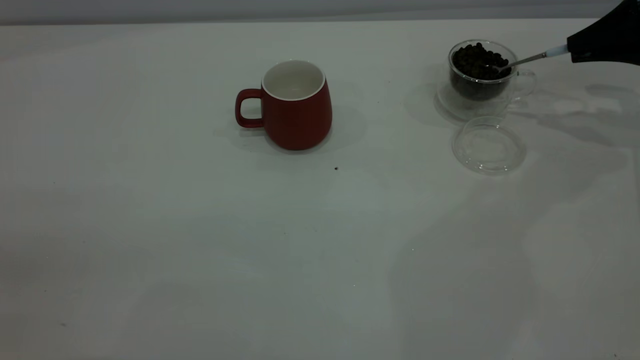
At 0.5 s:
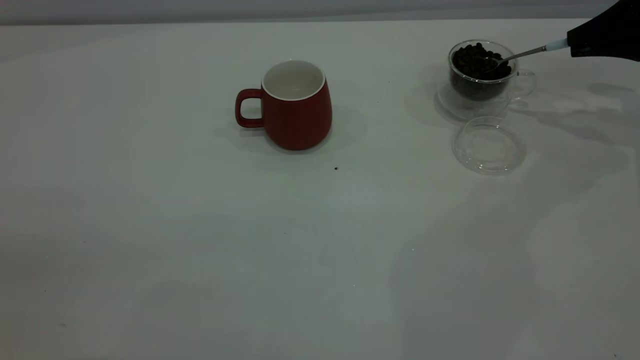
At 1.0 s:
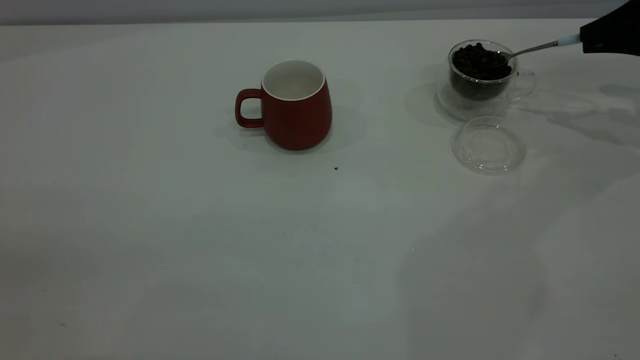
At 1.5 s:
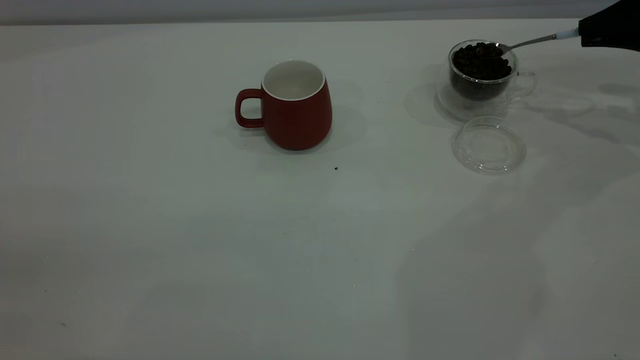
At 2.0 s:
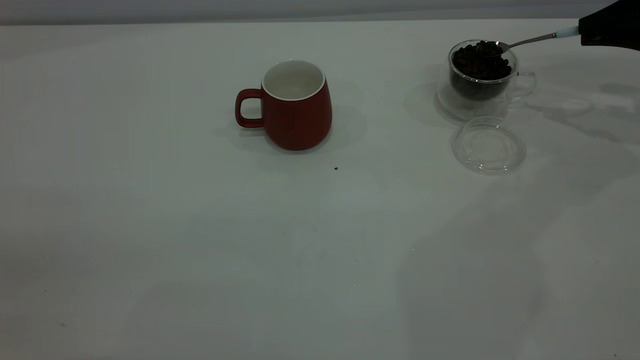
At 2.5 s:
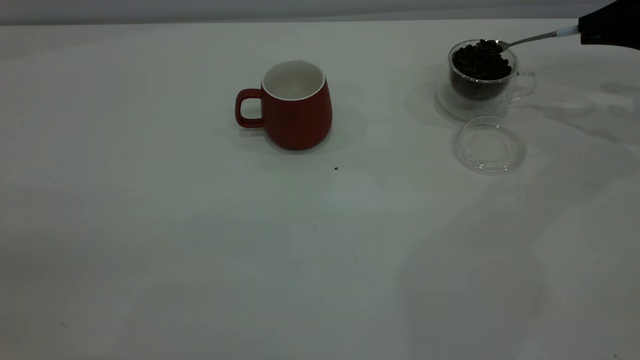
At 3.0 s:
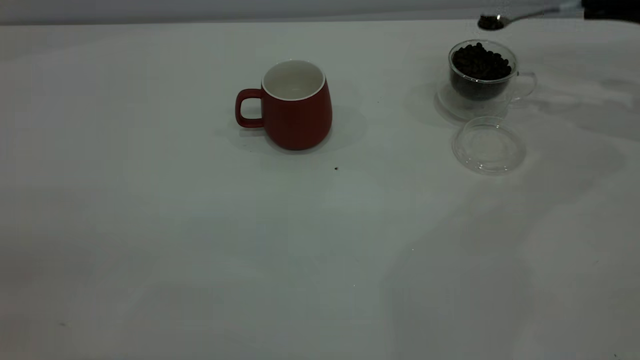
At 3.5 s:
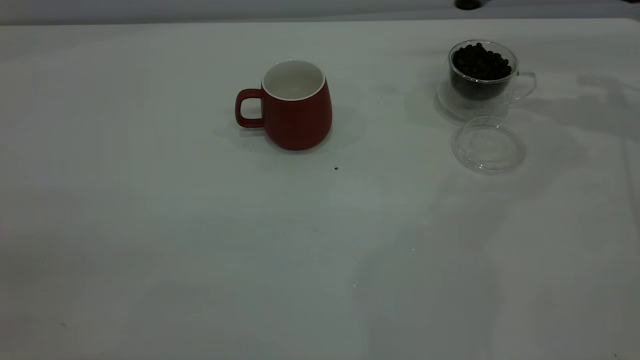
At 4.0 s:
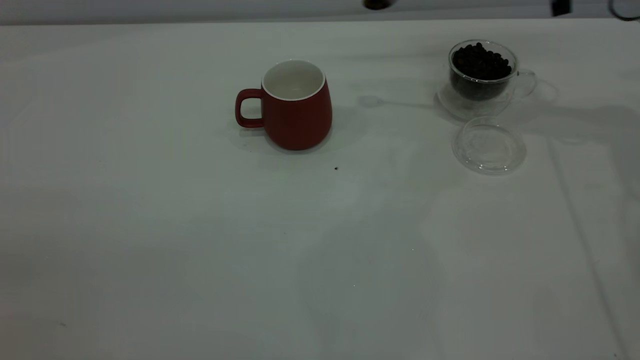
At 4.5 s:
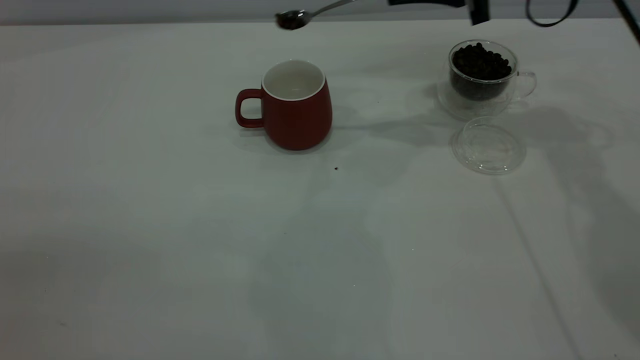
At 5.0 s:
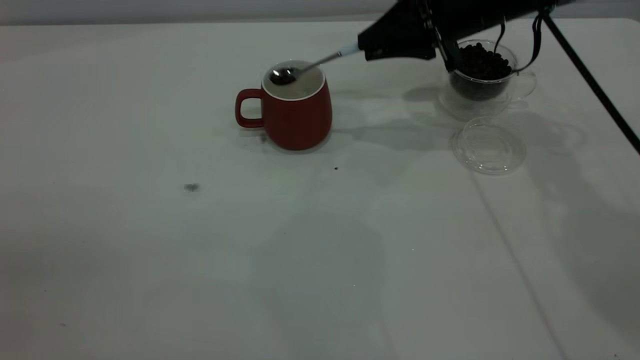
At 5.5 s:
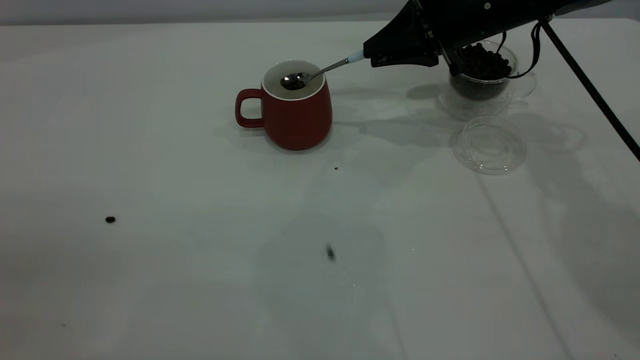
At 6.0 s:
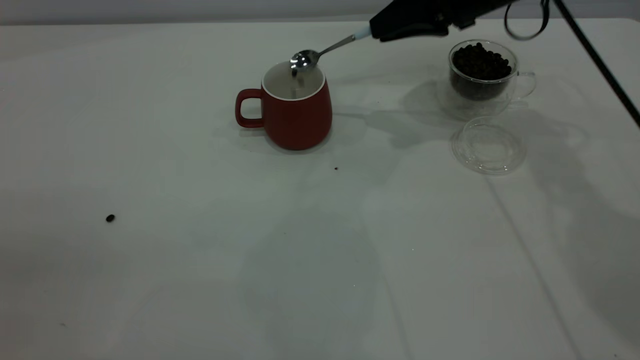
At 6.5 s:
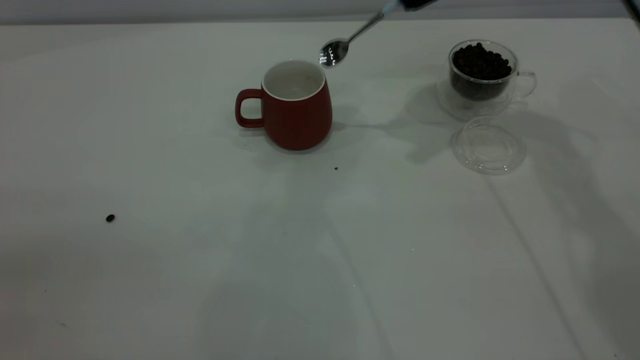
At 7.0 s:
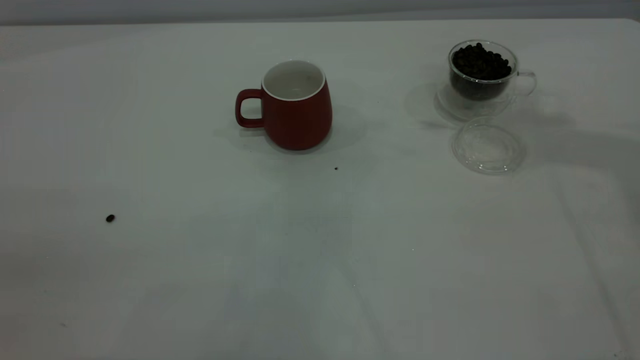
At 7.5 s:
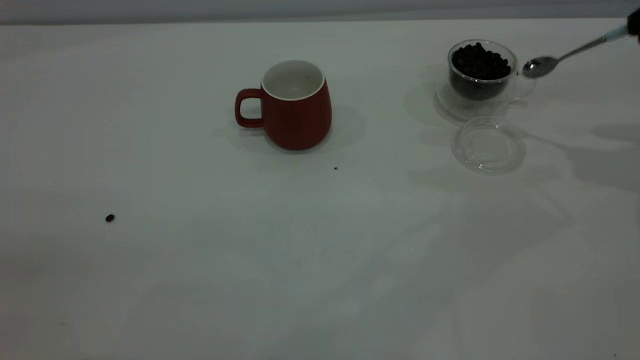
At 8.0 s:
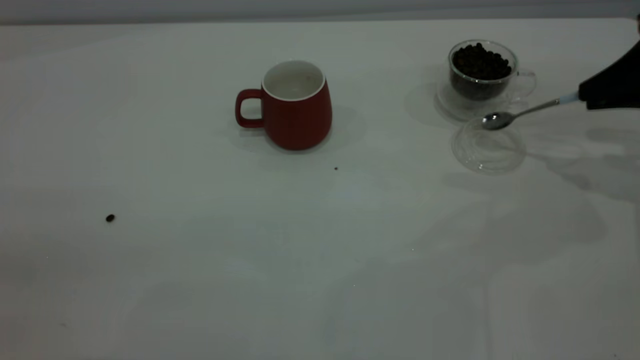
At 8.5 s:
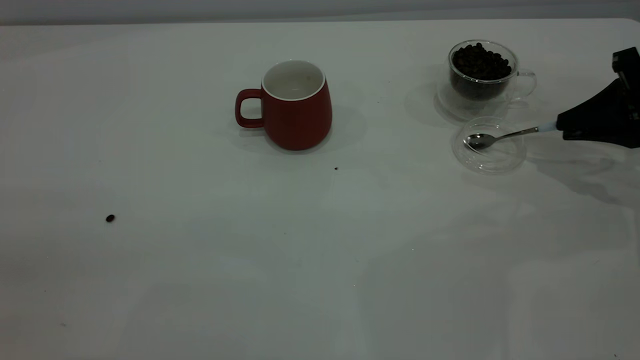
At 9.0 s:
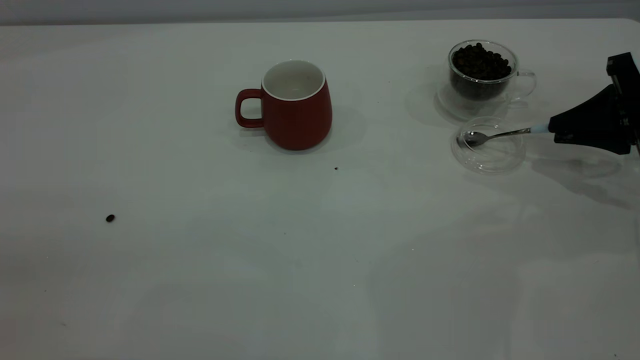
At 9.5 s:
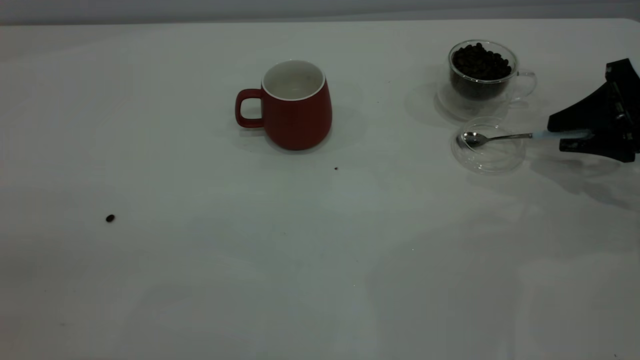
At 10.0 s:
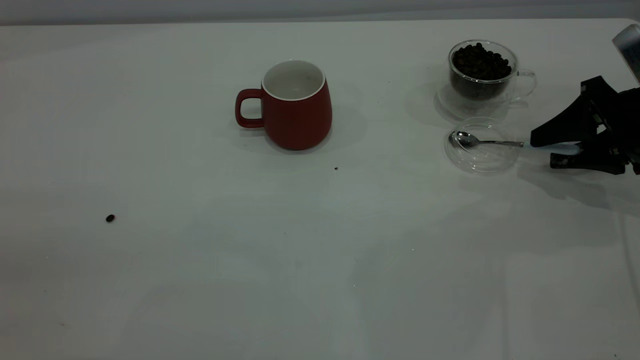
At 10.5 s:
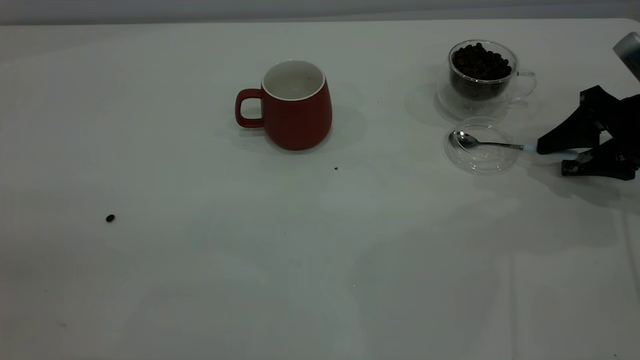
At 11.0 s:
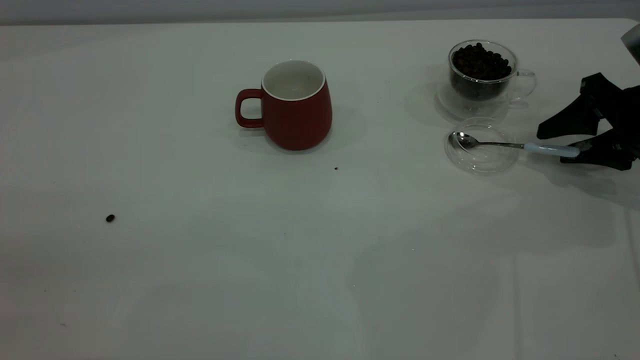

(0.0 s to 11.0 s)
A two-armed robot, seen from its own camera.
Task of the whole recording: the left gripper place the red cup in the center of the table, the right gripper take the blue spoon from the cup lid and scoop out the coffee beans from the coffee cup and put them into the red cup, the right gripper put the spoon back into the cup lid.
Step, 0.0 s - 6.0 s: Scoop a spoonful of beans into the cup.
0.0 s - 2.0 s: The grippers make only small movements.
2.0 s - 3.5 s: The right gripper travels upward by approximately 5 cm.
3.5 s - 5.5 s: The right gripper is displaced to the left by about 20 cm.
5.5 s - 7.5 s: The right gripper heads to the right, backward and upward, covering about 25 cm.
7.5 s - 9.0 s: The right gripper shifts some 15 cm downward.
9.0 s - 11.0 s: The right gripper opens up.

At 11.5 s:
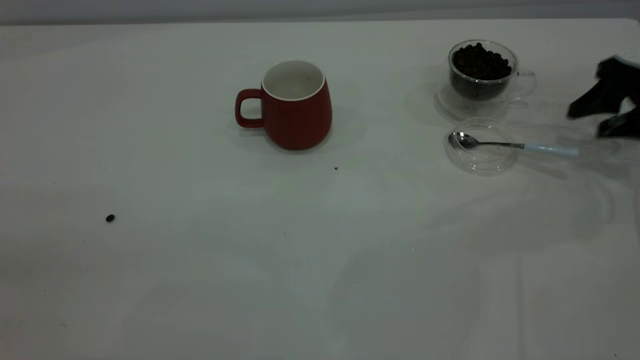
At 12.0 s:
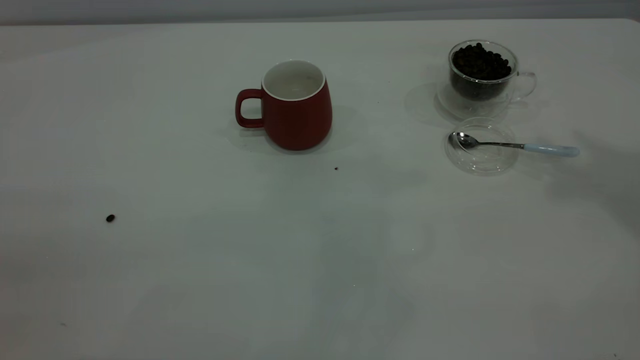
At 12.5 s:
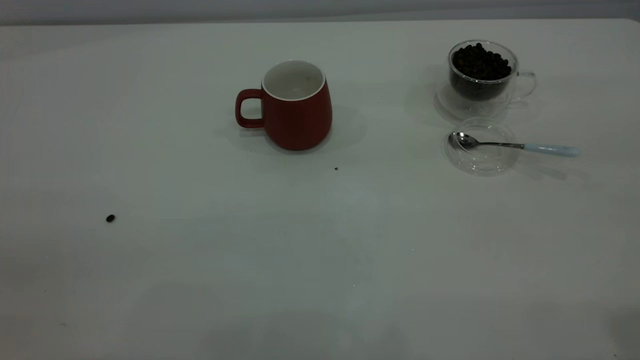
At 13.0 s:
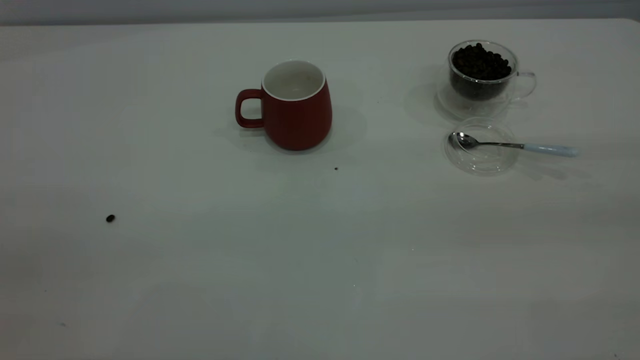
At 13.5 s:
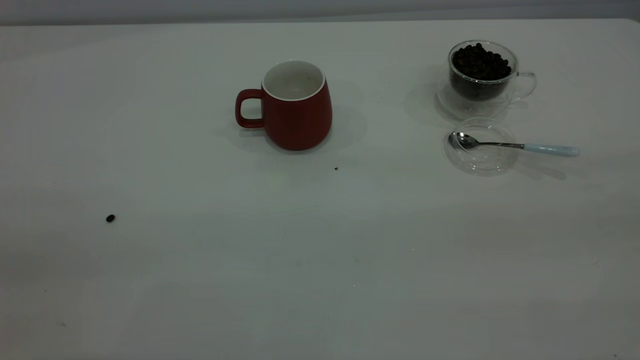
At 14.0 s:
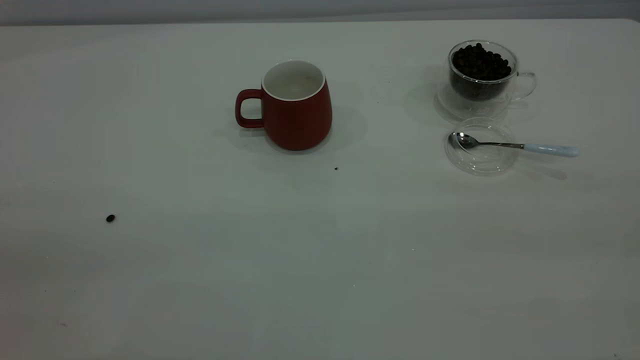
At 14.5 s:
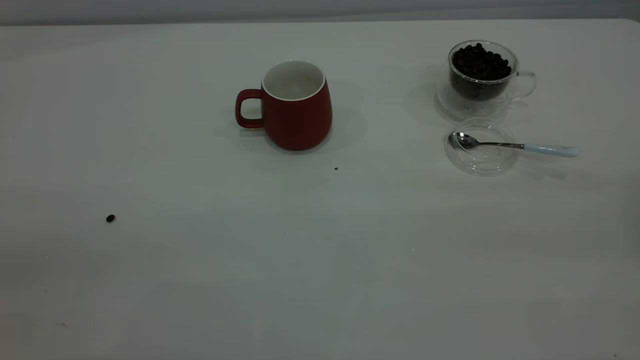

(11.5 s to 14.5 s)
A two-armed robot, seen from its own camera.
Task of the whole recording: the left gripper place the red cup in the center of the table, the right gripper take the blue spoon from the cup lid and scoop out the coffee beans from the coffee cup and put them into the red cup, the right gripper put the spoon back into the cup lid.
11.5 s - 13.0 s: The right gripper travels backward and upward by approximately 40 cm.
